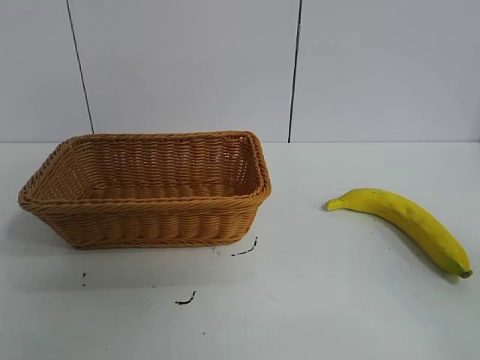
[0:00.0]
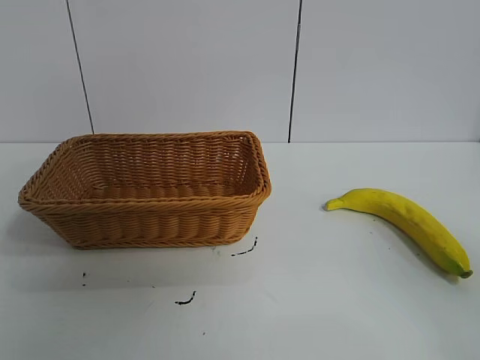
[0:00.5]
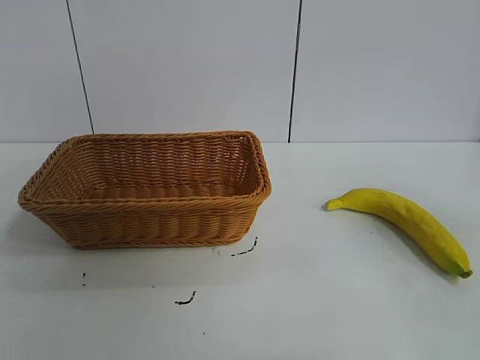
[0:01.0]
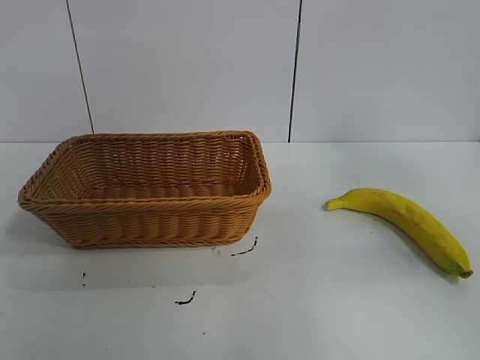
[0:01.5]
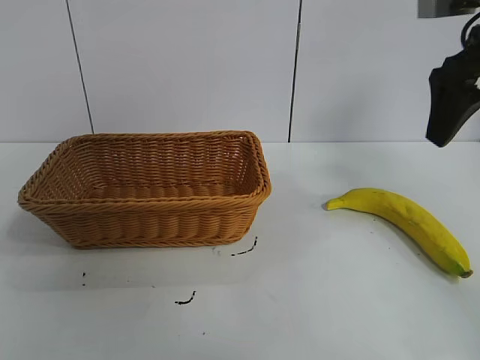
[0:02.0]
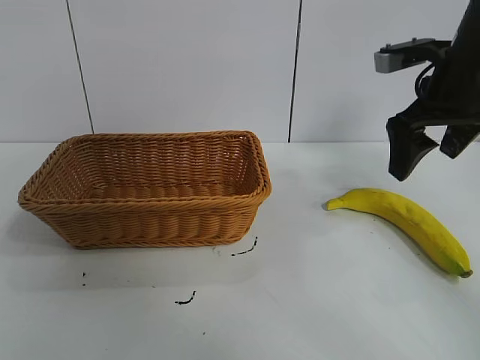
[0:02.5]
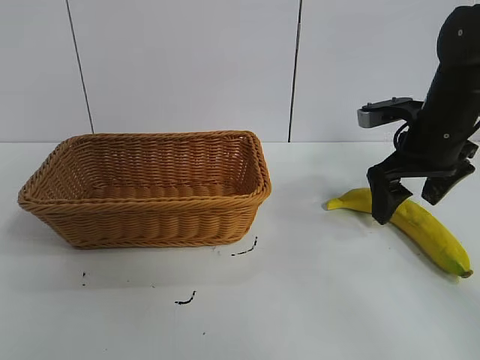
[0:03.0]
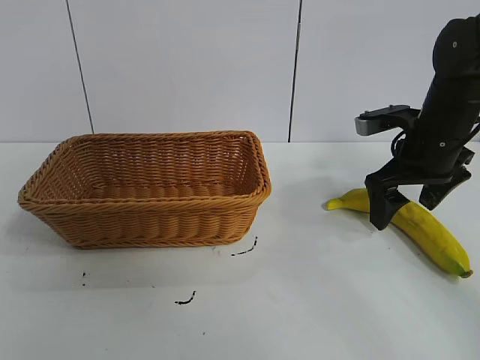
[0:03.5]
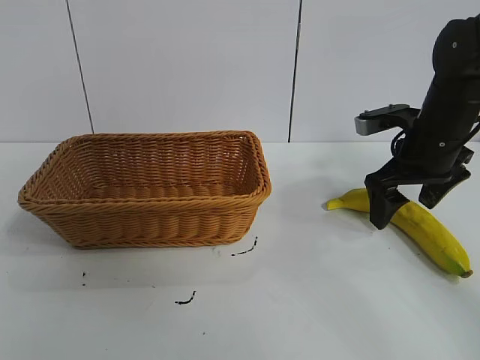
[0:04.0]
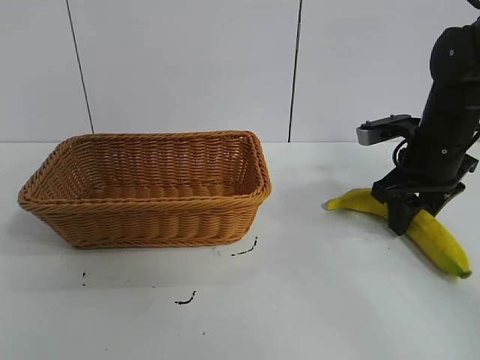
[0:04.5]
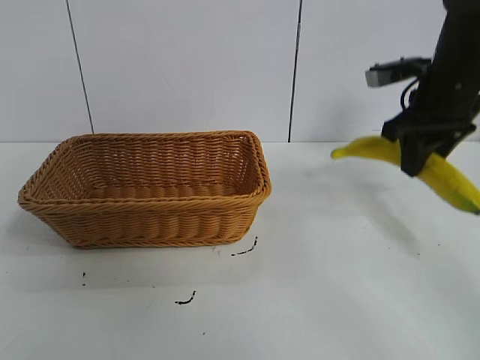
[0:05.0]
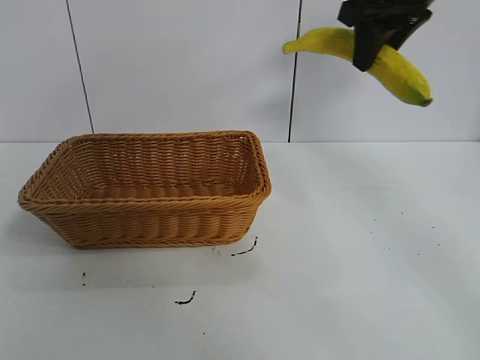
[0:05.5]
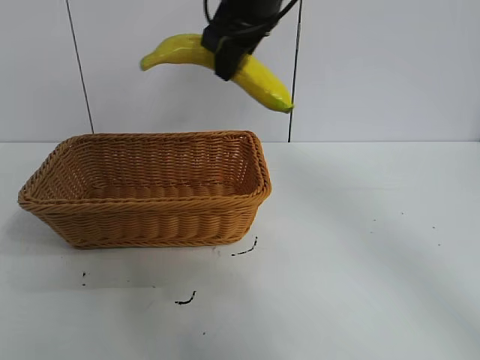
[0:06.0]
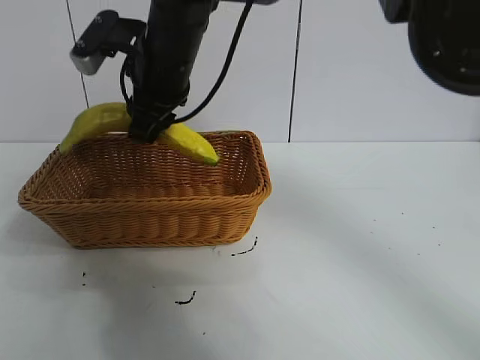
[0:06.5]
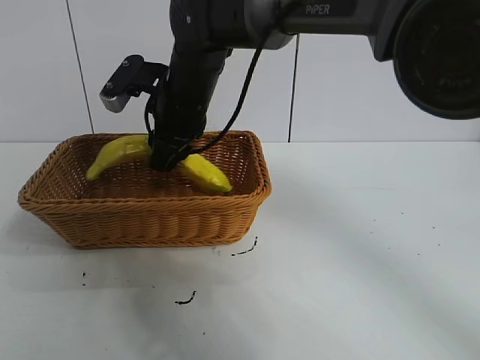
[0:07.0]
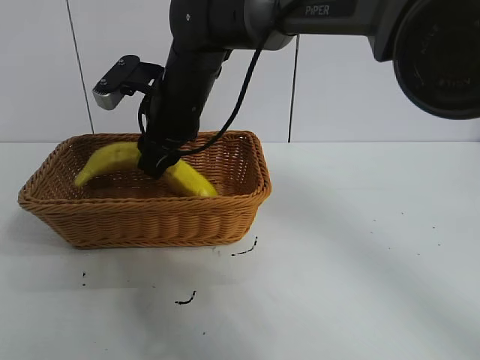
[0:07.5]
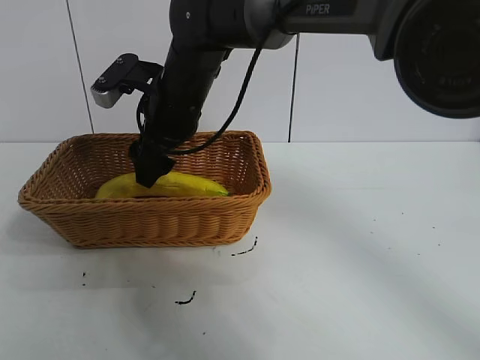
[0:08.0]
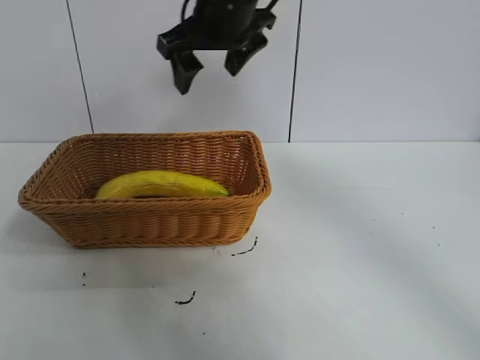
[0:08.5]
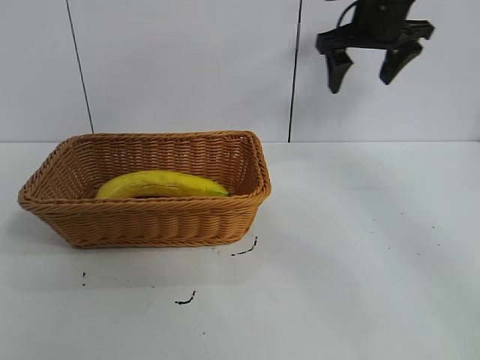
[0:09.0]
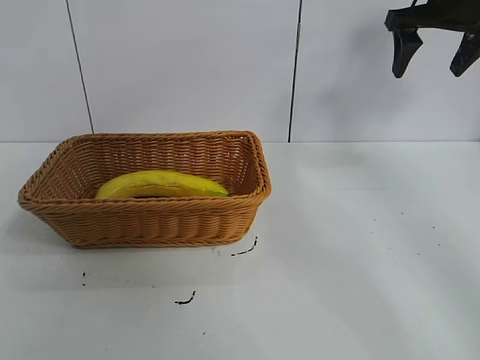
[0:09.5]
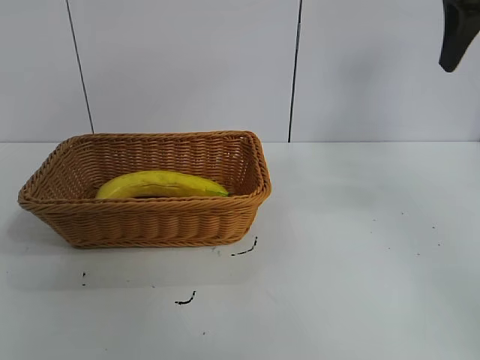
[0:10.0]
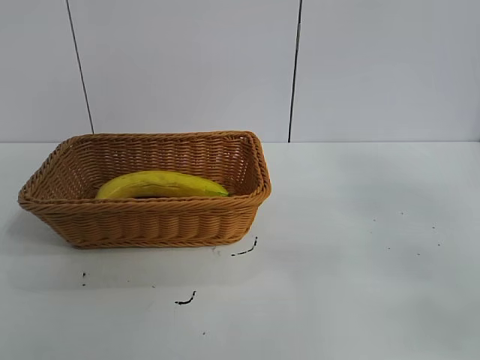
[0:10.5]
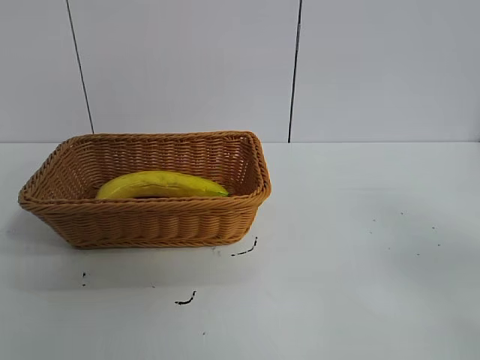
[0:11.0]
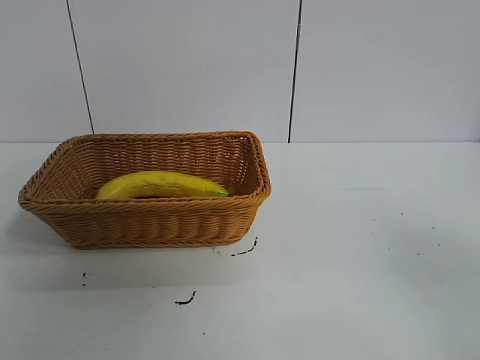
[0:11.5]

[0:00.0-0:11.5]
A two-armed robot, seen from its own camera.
Task of the whole recording: pick up the banana and put it into the basket.
Step, 0:01.0 to 0:04.5: Grasp the banana with right gripper.
Step, 0:05.0 to 0:07.5: Place the banana in the basket with right gripper.
